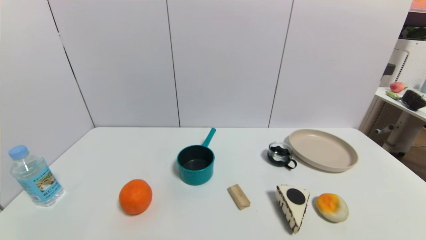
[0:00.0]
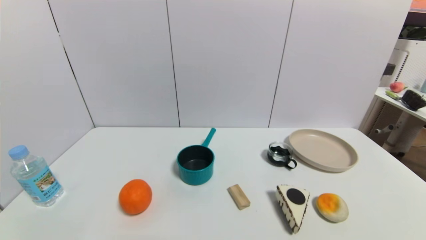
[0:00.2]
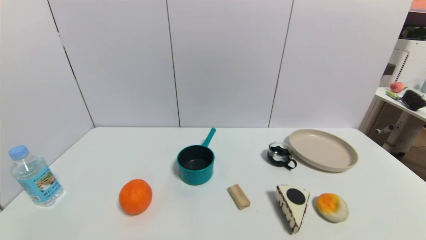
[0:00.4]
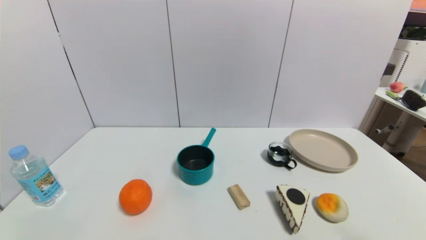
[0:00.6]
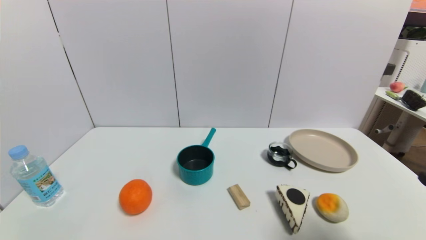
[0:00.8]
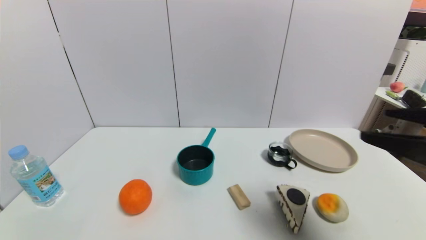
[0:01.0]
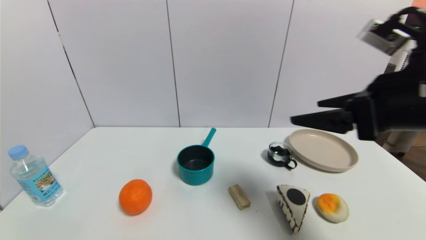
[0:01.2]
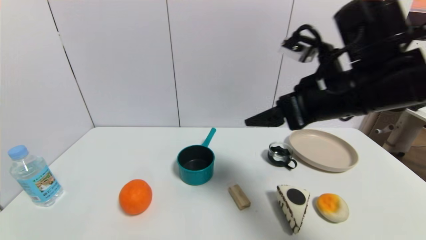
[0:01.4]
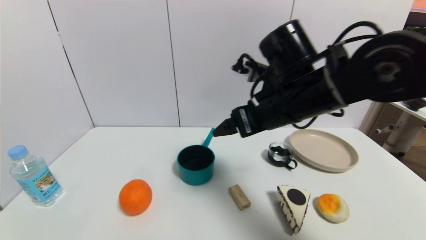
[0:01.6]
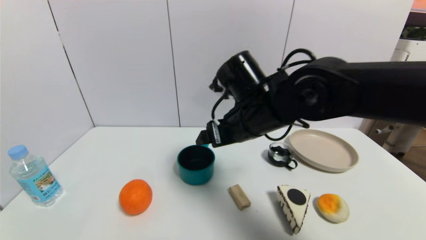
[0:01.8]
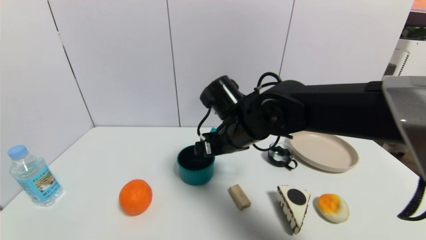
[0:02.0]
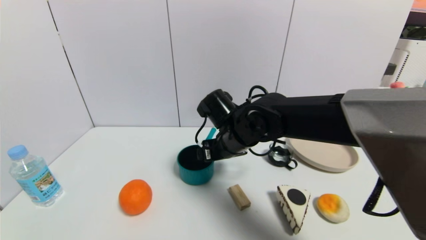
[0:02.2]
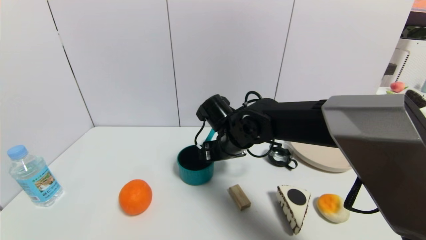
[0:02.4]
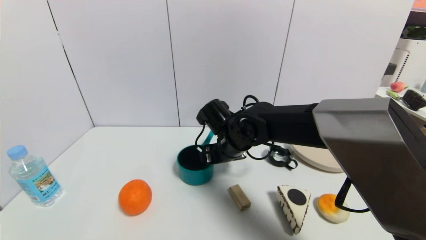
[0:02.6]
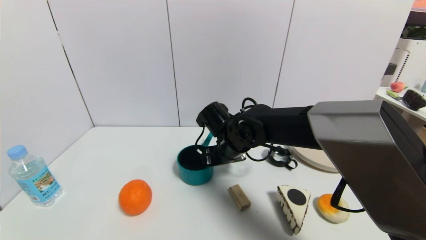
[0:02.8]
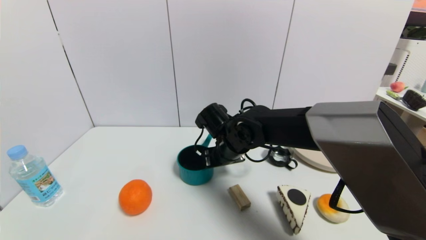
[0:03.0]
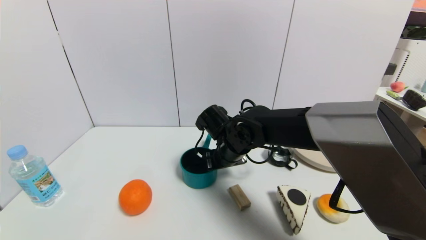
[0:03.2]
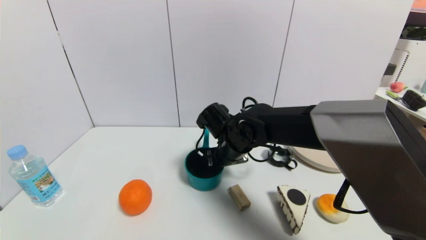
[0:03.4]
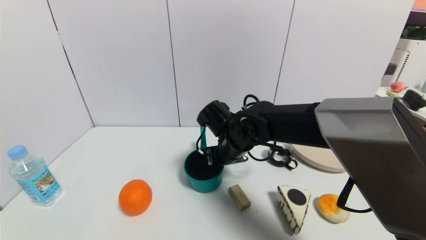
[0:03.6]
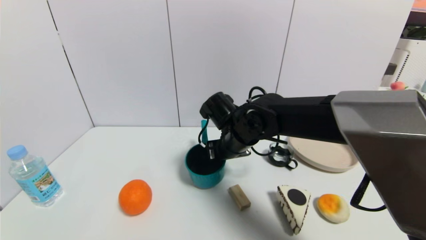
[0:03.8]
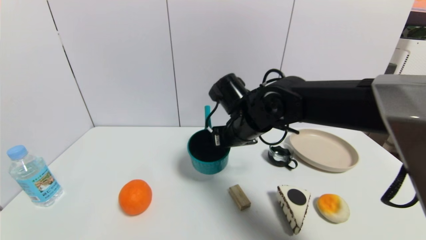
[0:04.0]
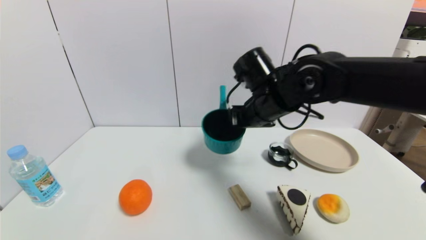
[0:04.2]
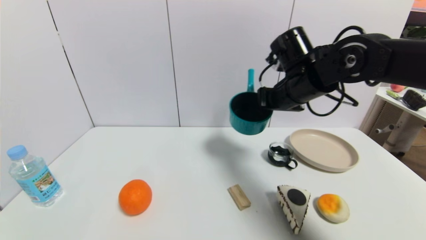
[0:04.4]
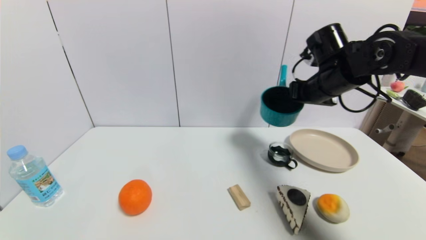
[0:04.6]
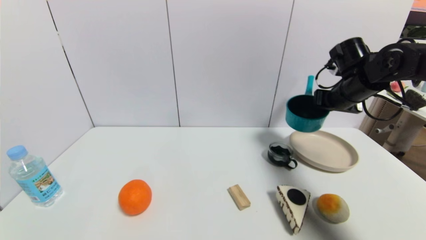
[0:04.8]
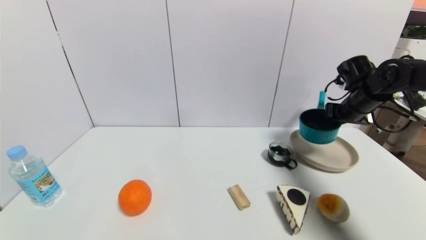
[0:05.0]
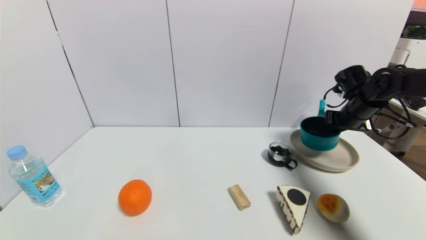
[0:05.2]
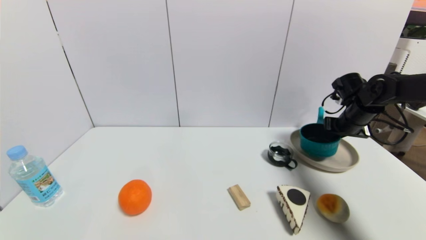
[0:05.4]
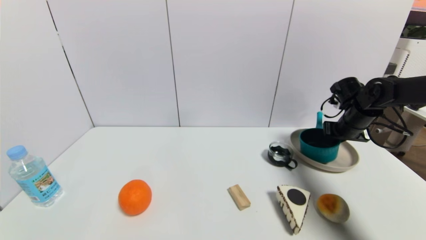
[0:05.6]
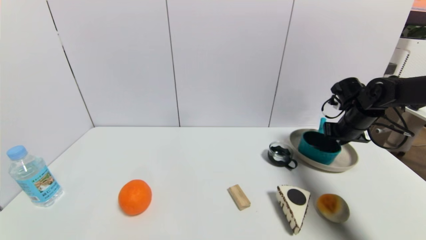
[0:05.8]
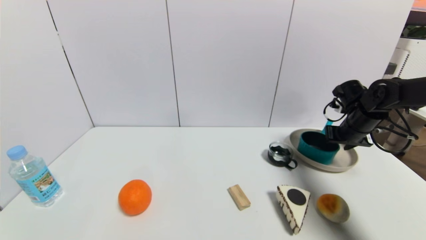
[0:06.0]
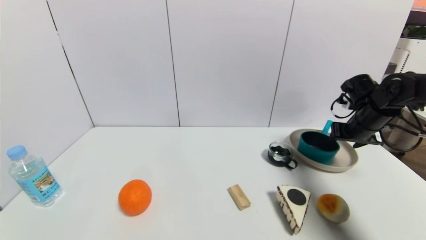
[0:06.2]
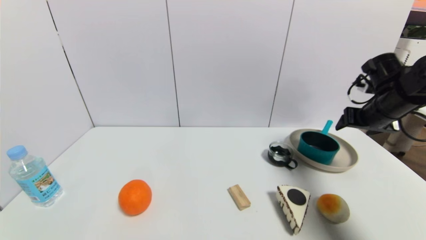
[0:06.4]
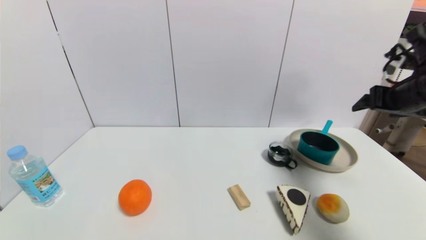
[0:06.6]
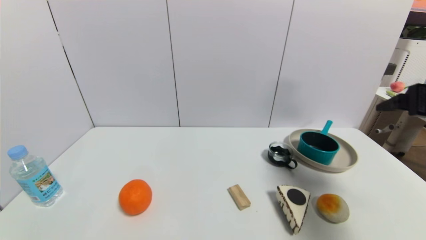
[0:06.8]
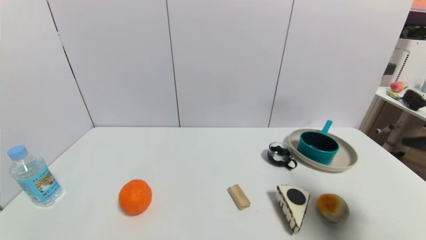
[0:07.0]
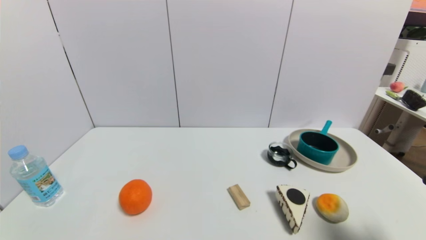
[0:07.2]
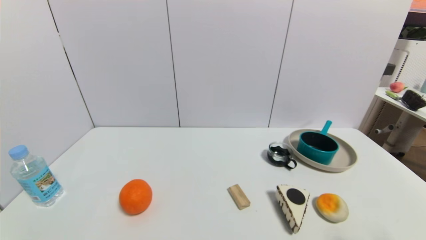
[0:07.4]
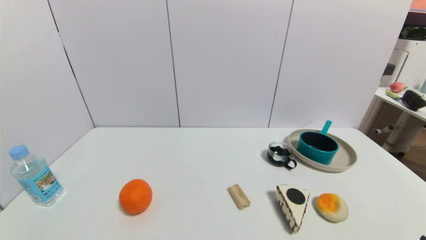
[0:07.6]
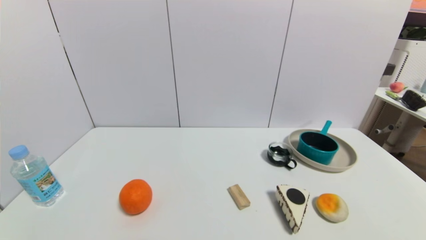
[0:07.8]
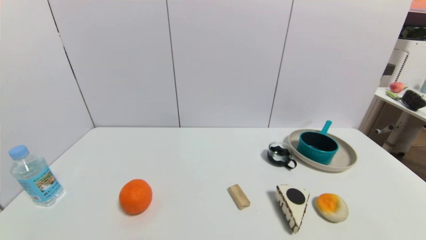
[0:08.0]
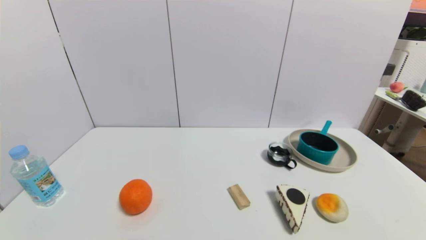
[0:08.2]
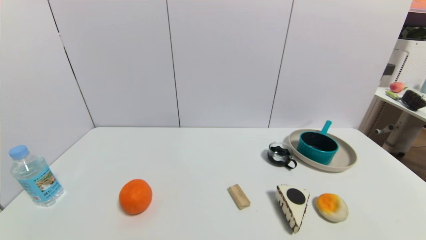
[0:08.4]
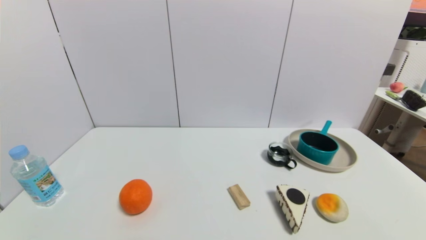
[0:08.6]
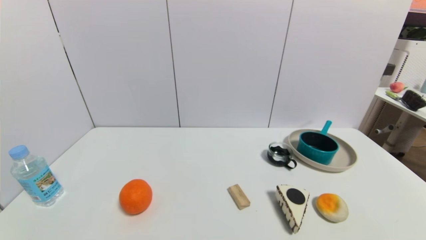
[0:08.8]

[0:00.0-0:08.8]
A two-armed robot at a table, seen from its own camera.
Task of the whole recording: use a gripper to pick the target object and place on the brown plate.
Step, 0:00.0 to 0:03.4: Grasp the blue pot with the right gripper.
Step, 0:03.6 to 0:06.2: Place the blue pot on the brown plate with the right gripper.
0:00.0 to 0:01.4: The right gripper heads forward, upward and to the left, covering roughly 40 cm.
0:01.4 to 0:03.0: The right gripper travels downward, to the left and forward by approximately 25 cm, and closes.
0:03.0 to 0:04.4: The right gripper heads to the right and upward, covering some 20 cm, and closes.
0:04.4 to 0:05.8: The right gripper heads to the right and downward, covering some 20 cm.
0:05.8 to 0:07.4: The right gripper travels backward by some 40 cm, and opens up.

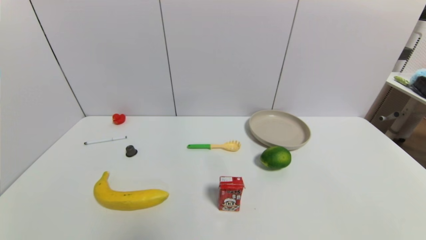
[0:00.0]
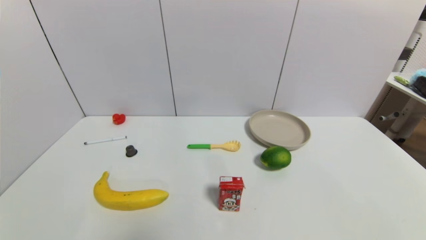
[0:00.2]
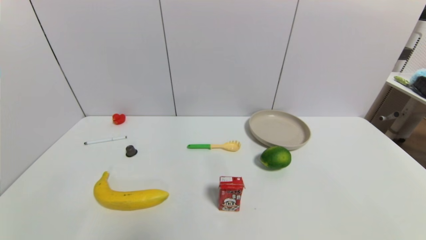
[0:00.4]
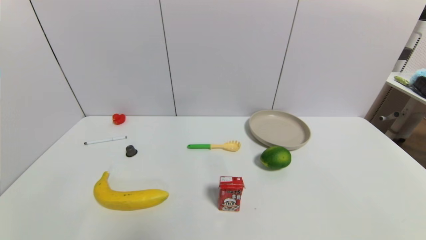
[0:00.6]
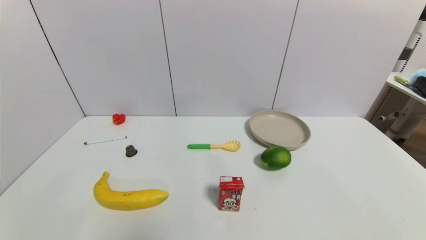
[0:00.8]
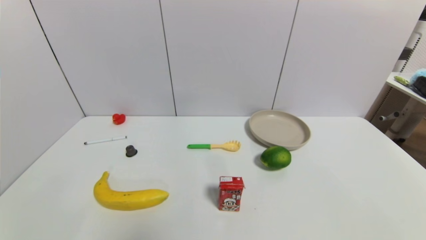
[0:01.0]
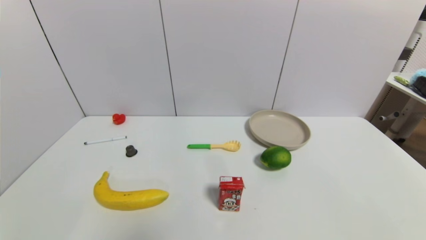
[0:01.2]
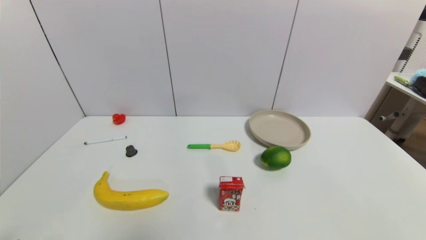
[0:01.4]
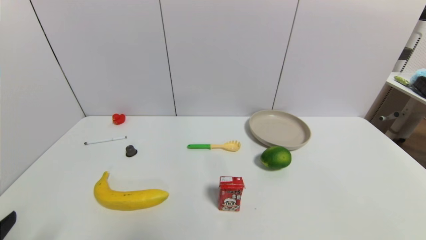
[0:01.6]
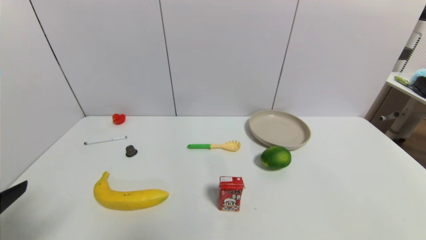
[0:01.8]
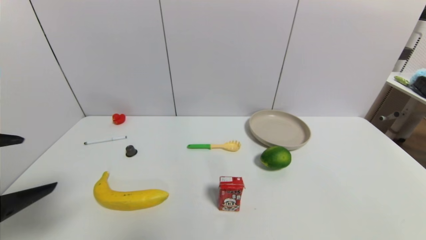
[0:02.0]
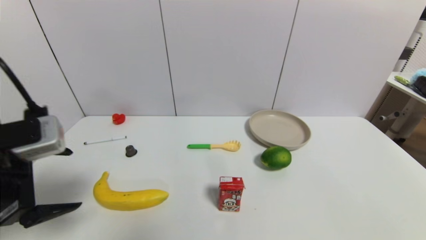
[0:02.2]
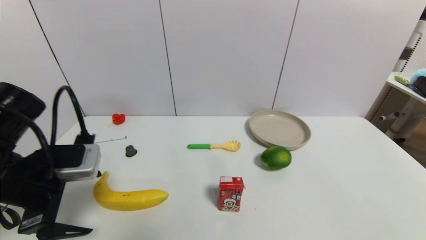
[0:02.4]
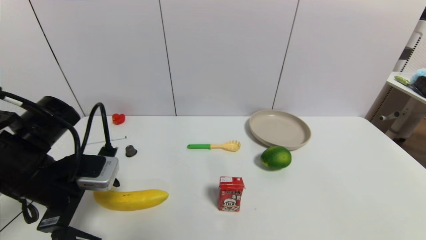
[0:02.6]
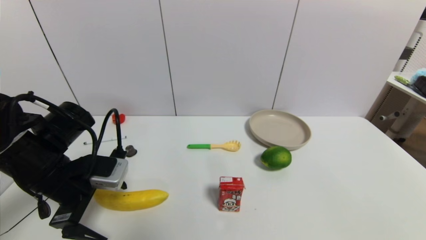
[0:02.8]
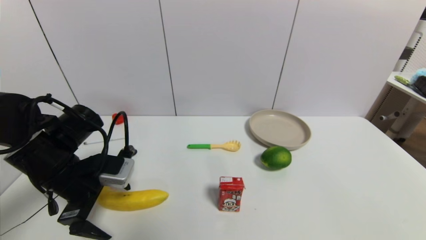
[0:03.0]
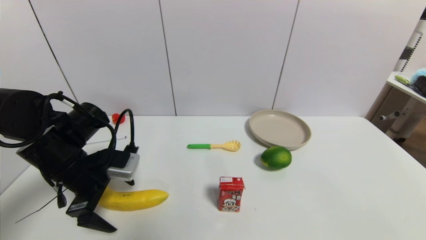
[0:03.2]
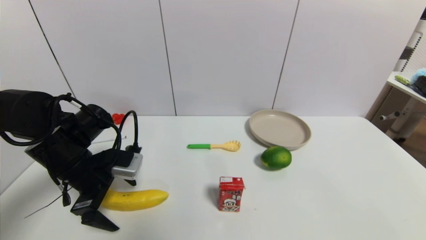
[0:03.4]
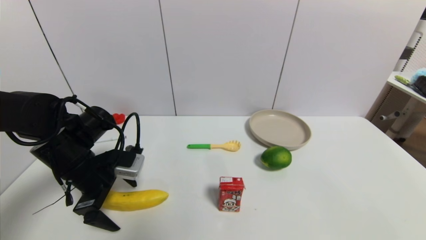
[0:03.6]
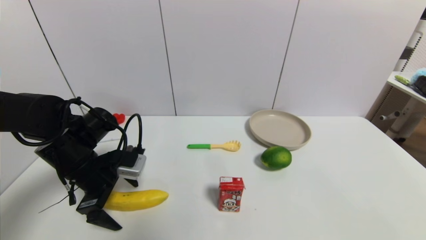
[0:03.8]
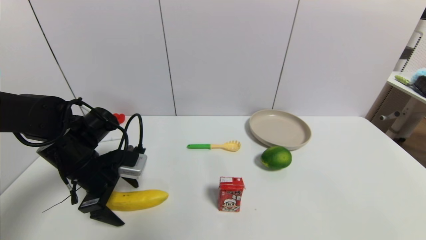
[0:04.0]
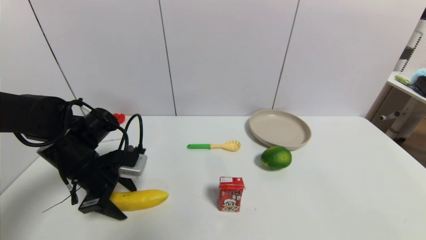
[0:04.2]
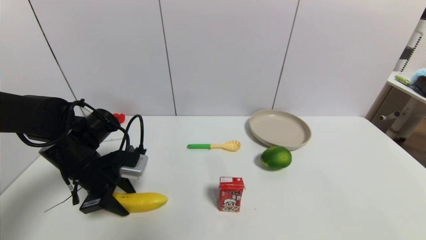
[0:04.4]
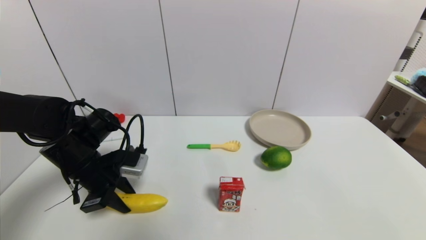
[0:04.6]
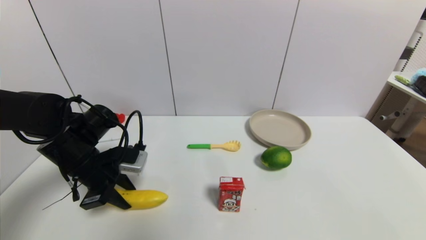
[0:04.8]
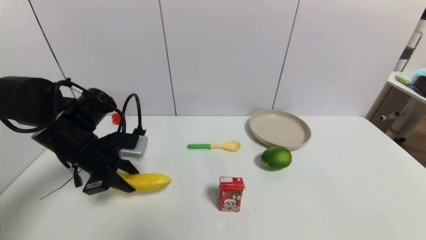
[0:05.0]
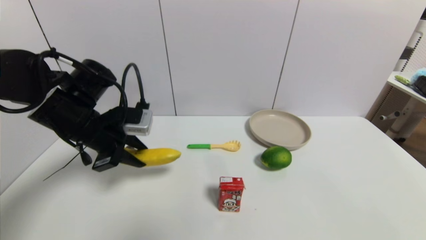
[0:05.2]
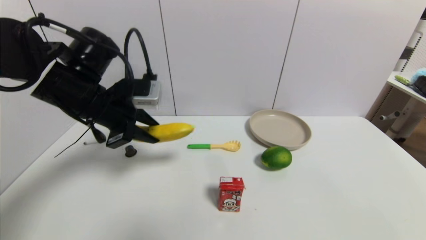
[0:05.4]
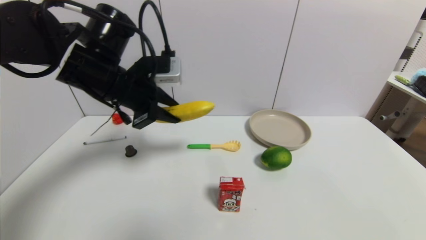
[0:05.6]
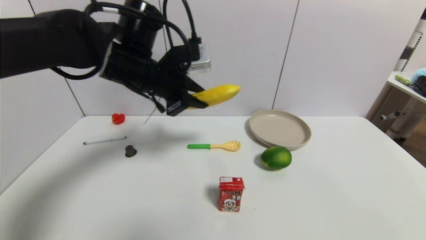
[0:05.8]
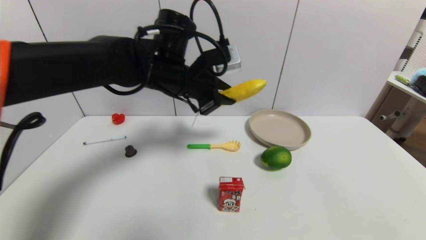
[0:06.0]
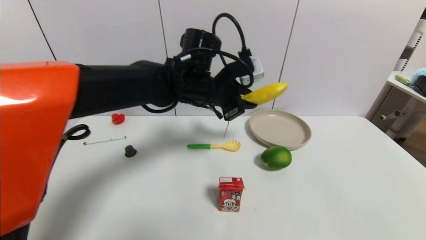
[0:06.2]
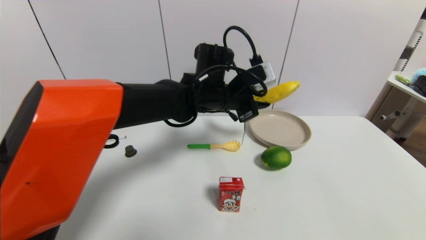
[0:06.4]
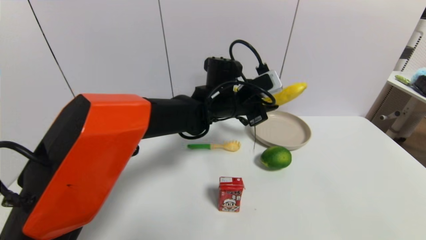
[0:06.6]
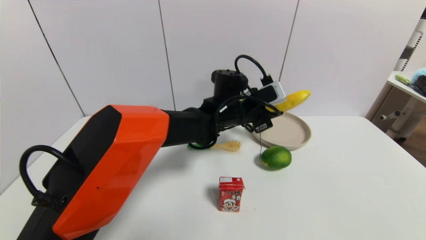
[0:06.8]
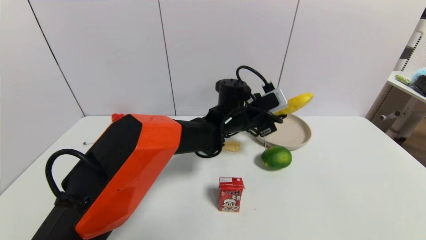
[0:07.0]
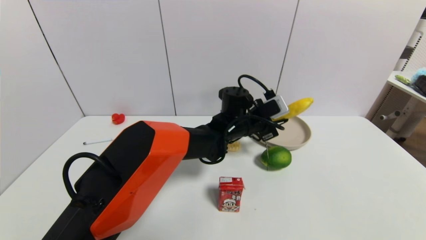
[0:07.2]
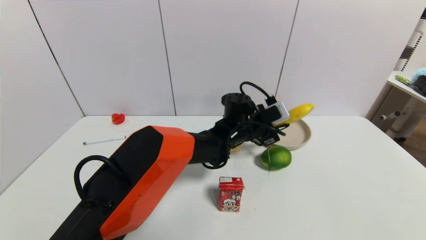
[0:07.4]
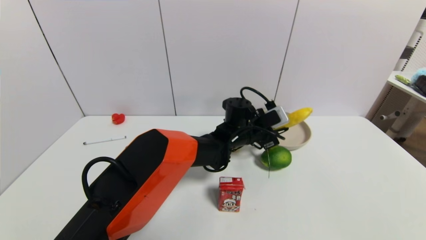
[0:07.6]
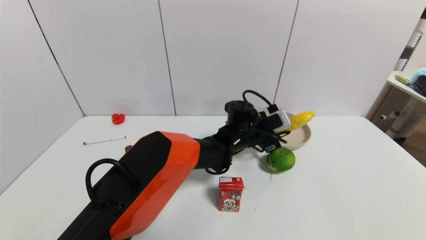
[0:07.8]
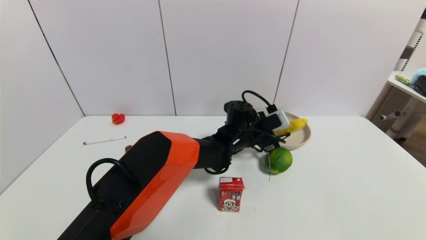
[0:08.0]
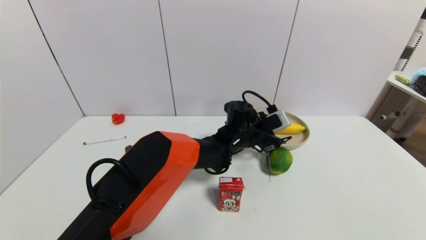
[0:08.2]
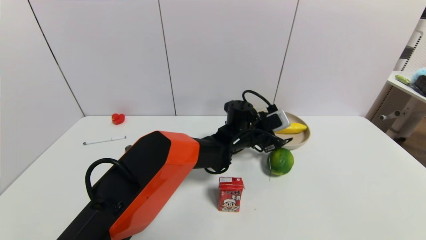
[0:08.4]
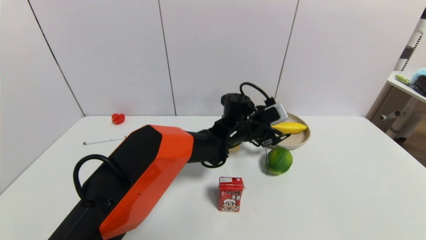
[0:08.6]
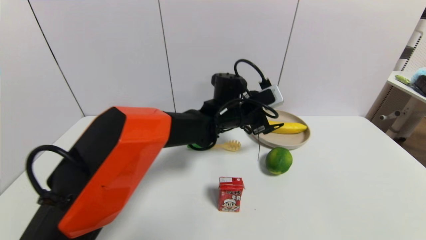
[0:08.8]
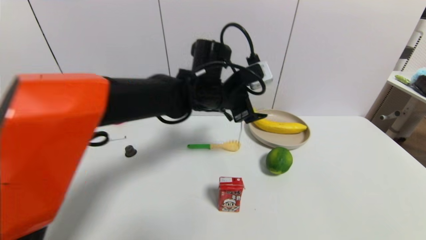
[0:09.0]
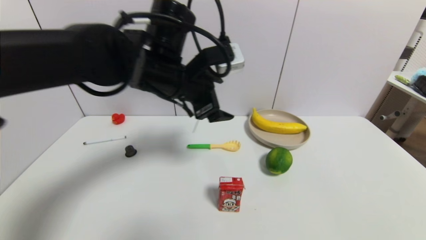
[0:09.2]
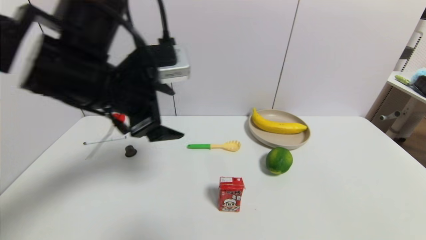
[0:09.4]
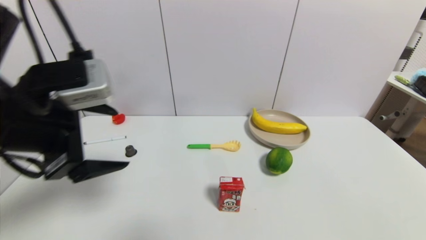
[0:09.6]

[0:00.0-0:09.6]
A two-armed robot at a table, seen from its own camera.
Task of the whole recording: use a gripper to pick the target object and place on the brown plate.
Step, 0:00.0 to 0:04.6: Grasp the banana with the left gripper.
Step, 0:04.8 to 0:08.8: Place the banana on the brown plate with the left gripper.
0:01.6 to 0:03.2: The left gripper shifts some 25 cm forward.
0:03.2 to 0:04.8: The left gripper closes.
0:04.8 to 0:06.4: The left gripper goes some 25 cm to the right.
0:06.4 to 0:08.0: The left gripper heads downward and to the right, covering approximately 15 cm.
0:08.0 to 0:09.6: The left gripper goes some 40 cm to the left, backward and upward, and opens up.
